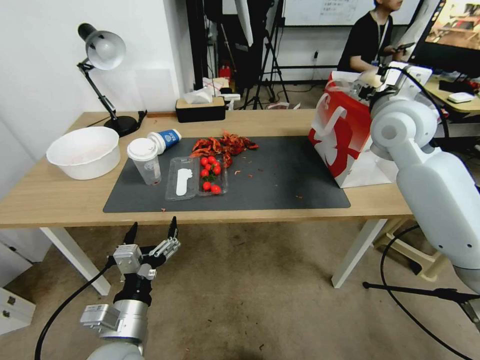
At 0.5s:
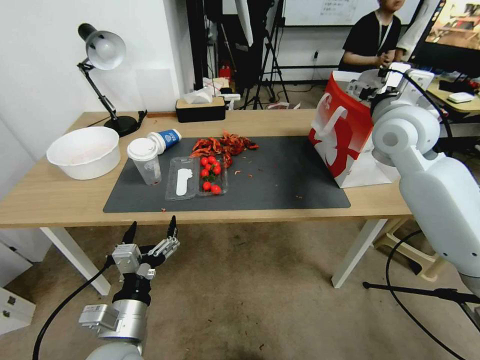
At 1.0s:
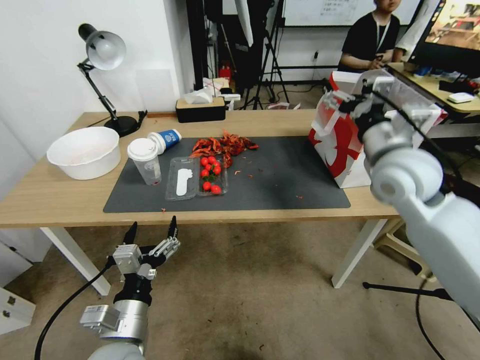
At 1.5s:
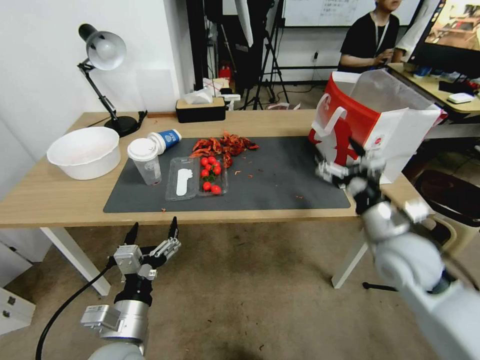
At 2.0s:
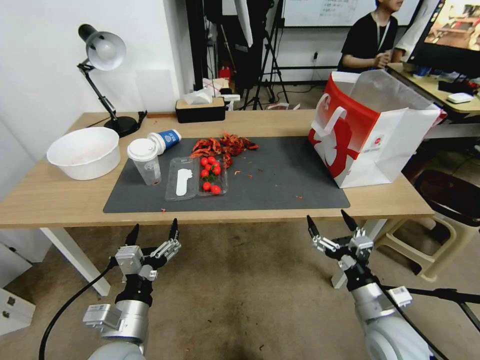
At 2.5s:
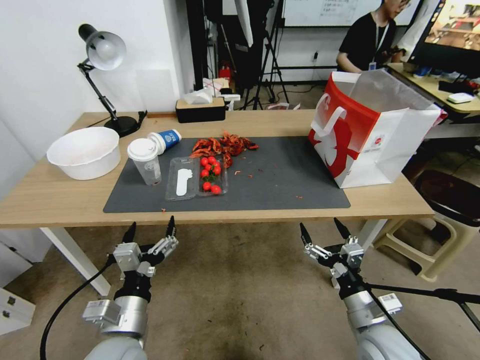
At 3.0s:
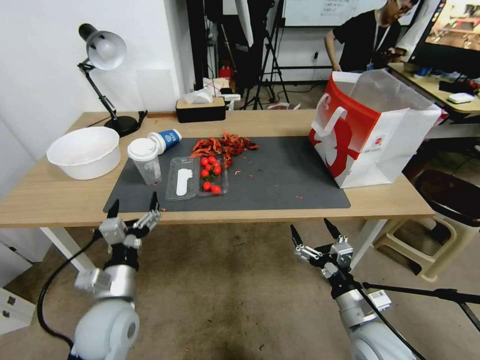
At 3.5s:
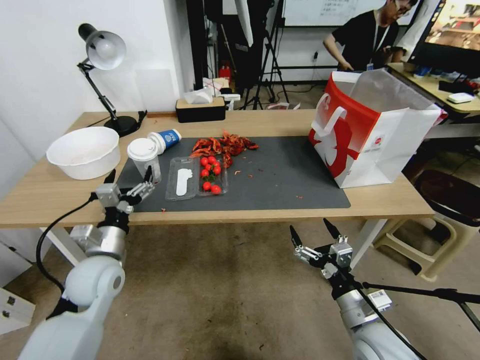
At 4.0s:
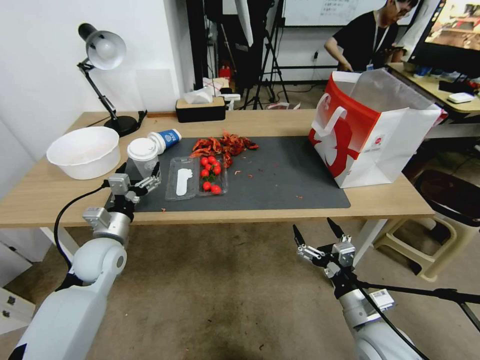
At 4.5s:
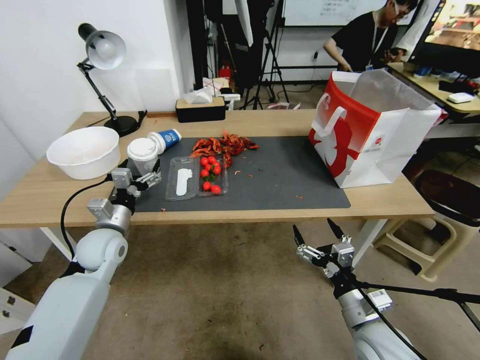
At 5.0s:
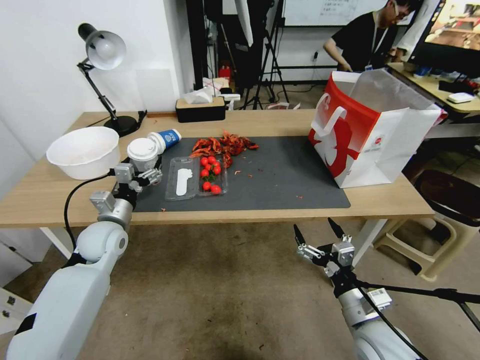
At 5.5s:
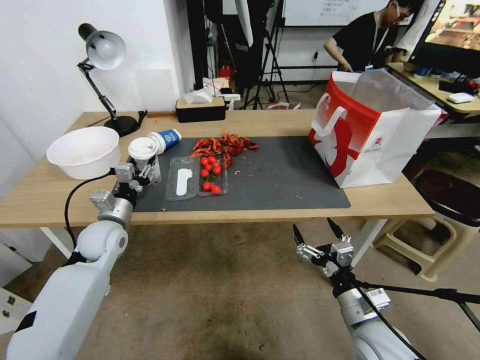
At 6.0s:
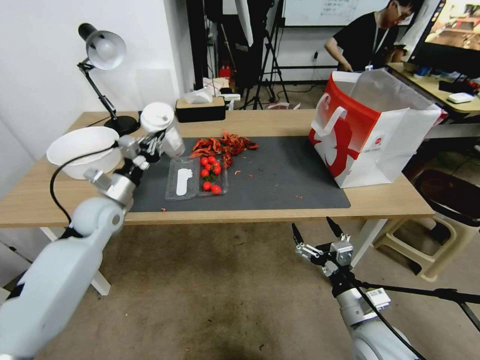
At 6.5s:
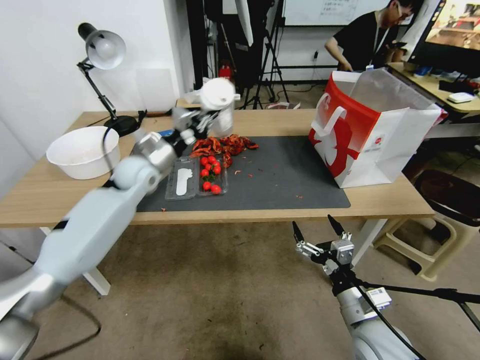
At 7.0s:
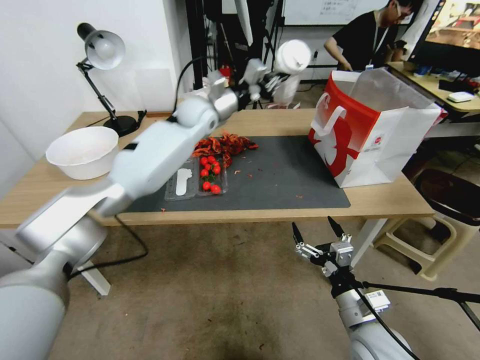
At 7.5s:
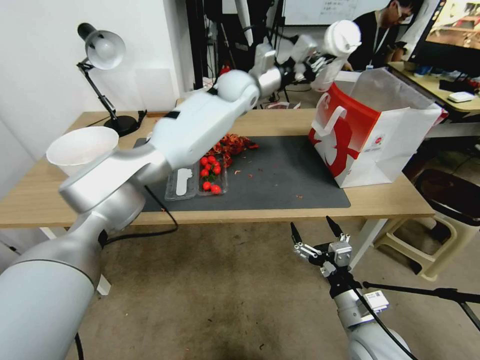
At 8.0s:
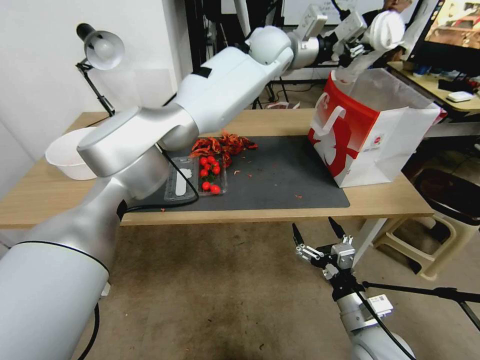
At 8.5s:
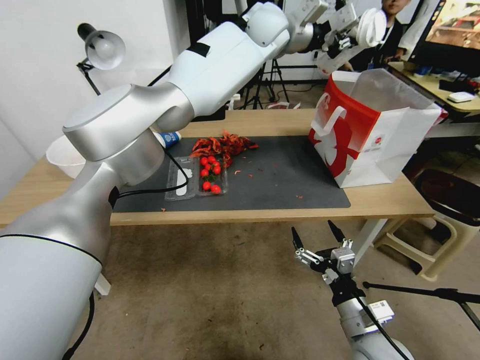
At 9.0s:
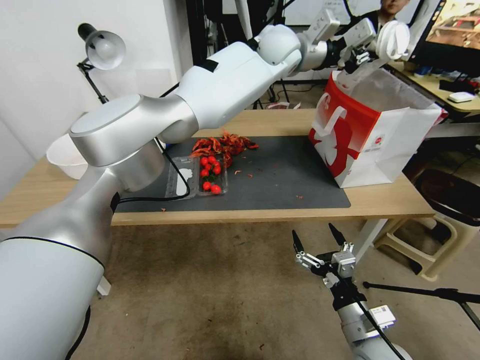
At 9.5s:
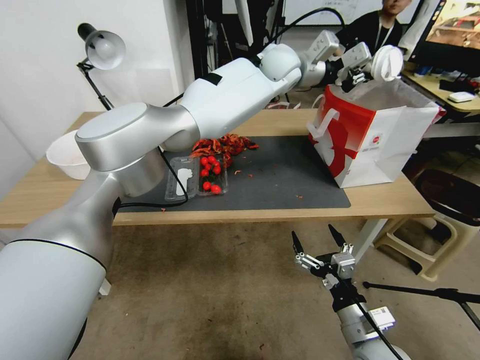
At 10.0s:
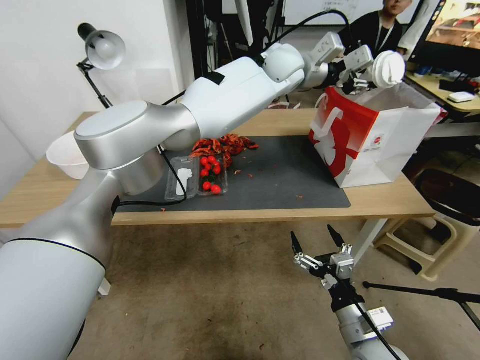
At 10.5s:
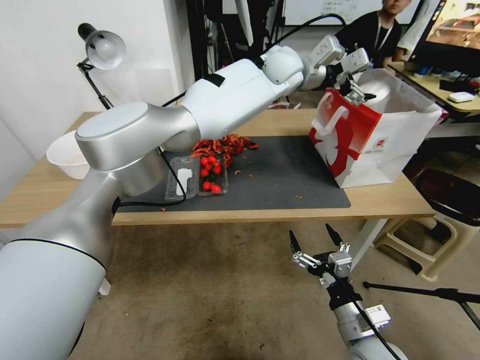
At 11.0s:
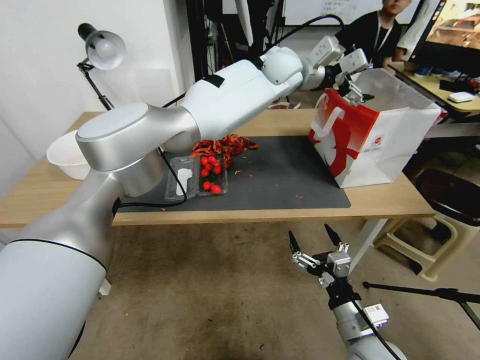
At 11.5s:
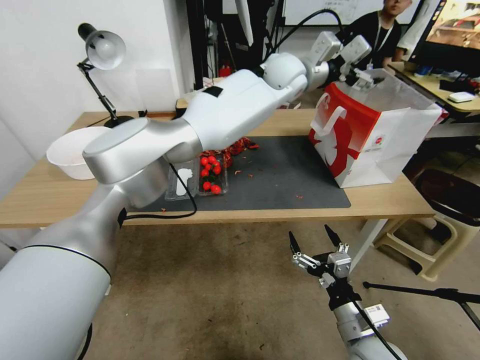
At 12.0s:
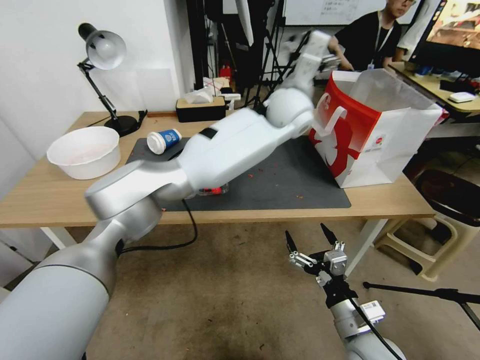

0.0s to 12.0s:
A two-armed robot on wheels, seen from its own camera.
0.0s to 2.0s: The right gripper heads downward and backward, covering roughly 40 cm.
2.0s to 4.0s: The left gripper travels forward and to the left by roughly 20 cm.
4.0s to 6.0s: The left gripper heads forward, covering approximately 5 cm, and closes its fingers.
6.0s to 8.0s: The left gripper travels to the right, upward and forward by approximately 60 cm.
8.0s to 10.0s: The left gripper opens its fingers.
10.0s to 12.0s: The left gripper goes about 10 cm backward and downward, and opens.

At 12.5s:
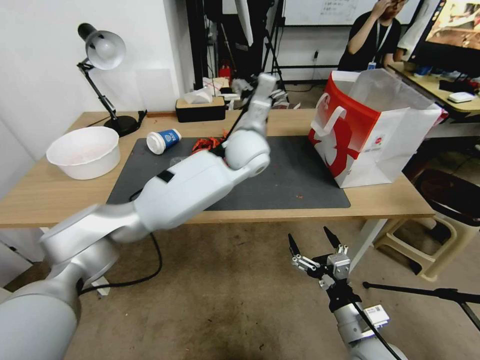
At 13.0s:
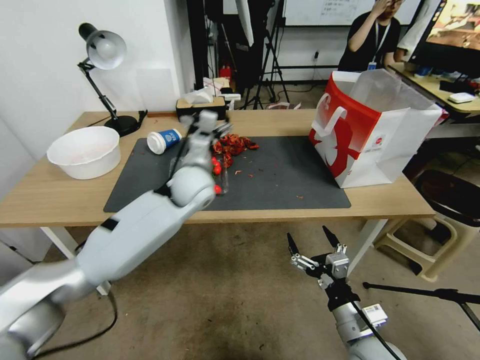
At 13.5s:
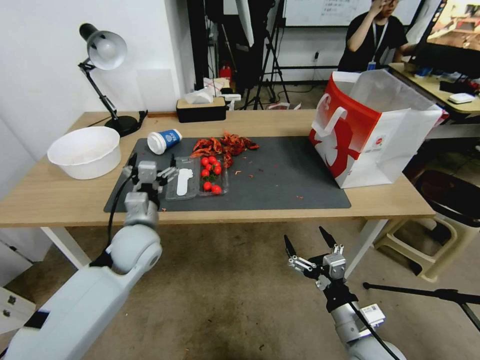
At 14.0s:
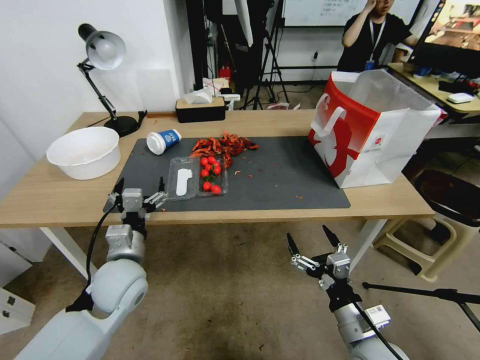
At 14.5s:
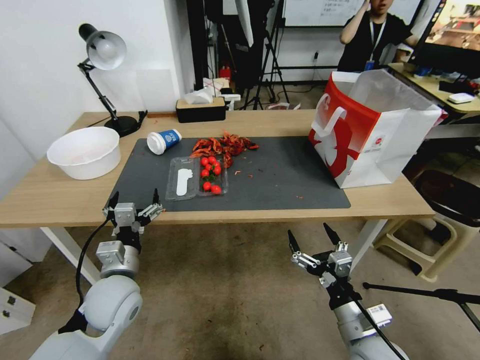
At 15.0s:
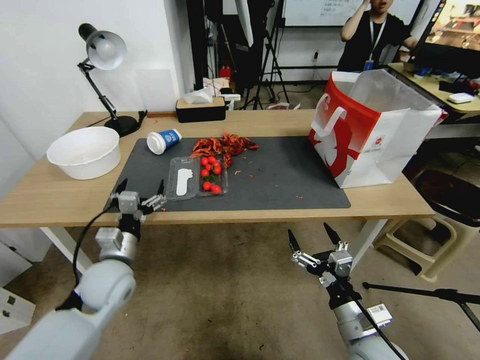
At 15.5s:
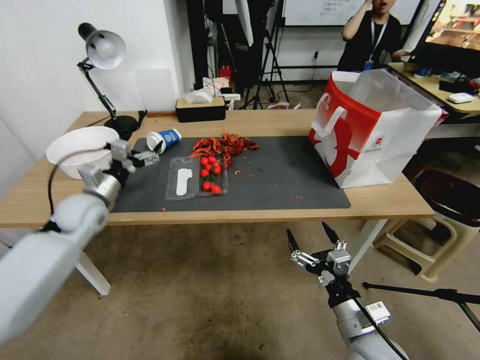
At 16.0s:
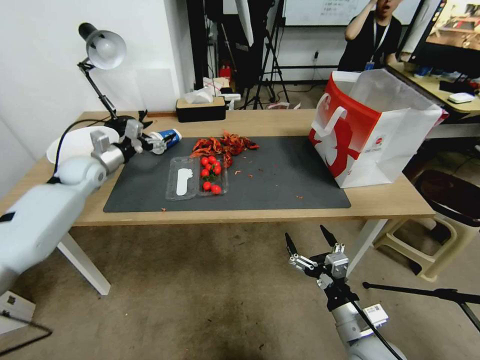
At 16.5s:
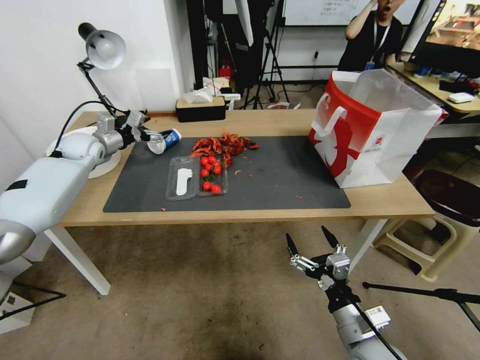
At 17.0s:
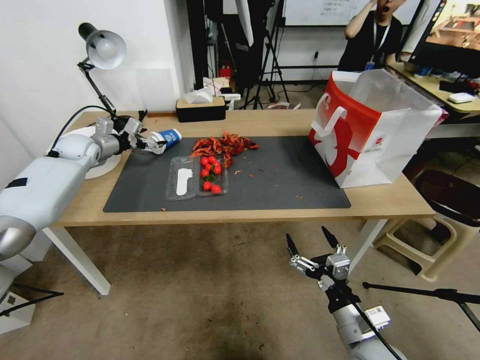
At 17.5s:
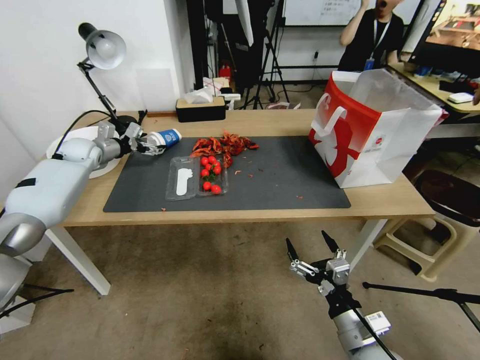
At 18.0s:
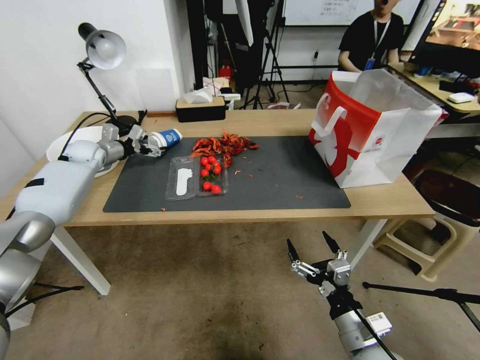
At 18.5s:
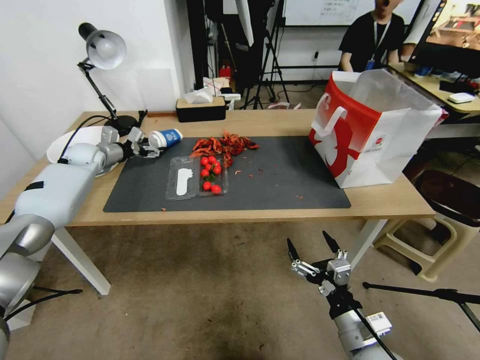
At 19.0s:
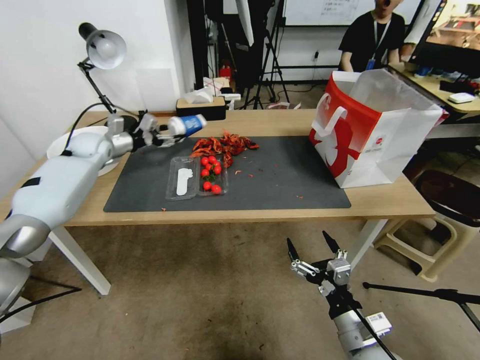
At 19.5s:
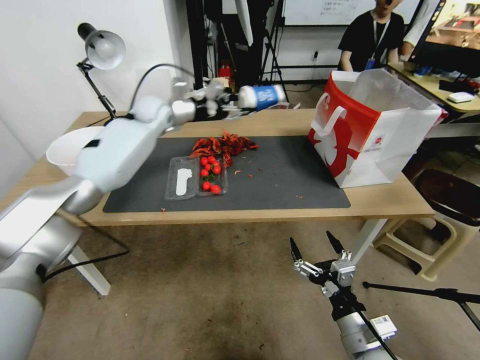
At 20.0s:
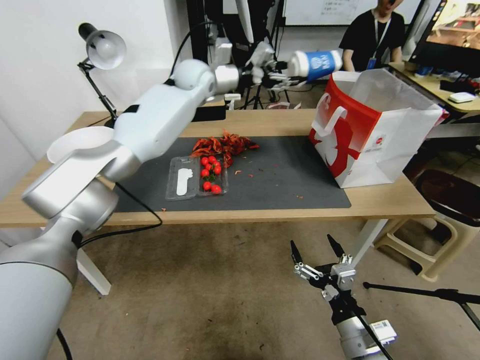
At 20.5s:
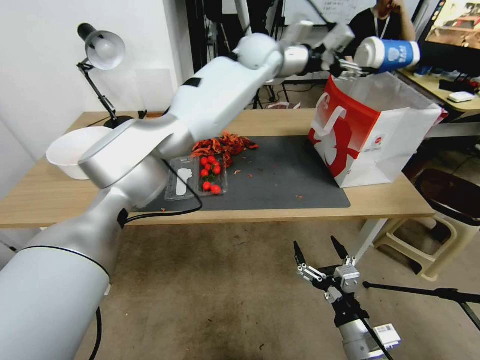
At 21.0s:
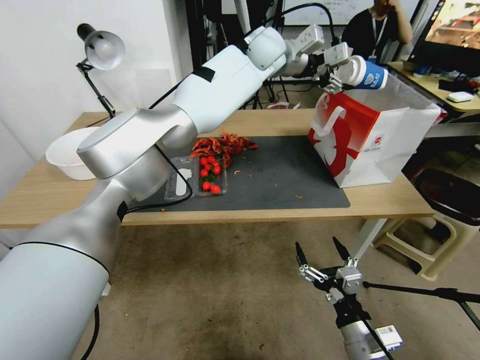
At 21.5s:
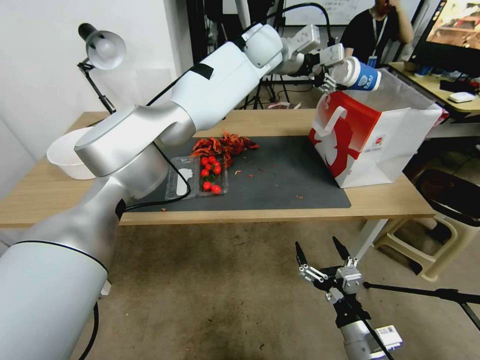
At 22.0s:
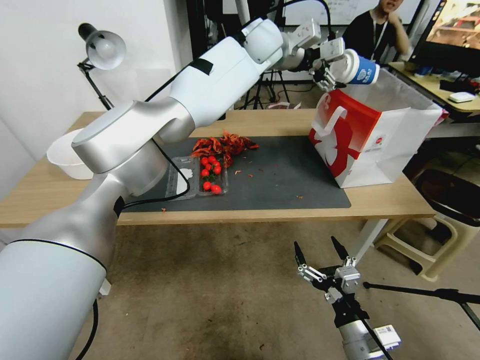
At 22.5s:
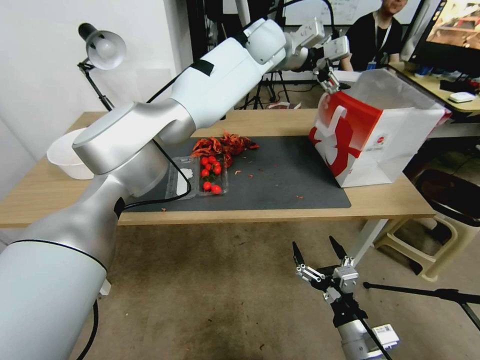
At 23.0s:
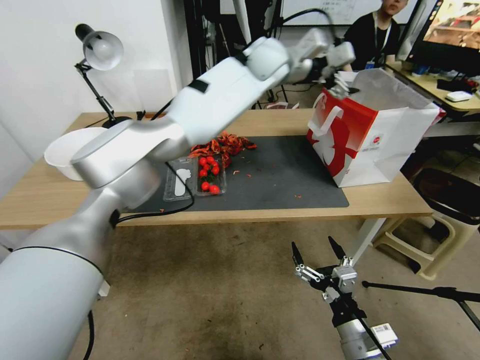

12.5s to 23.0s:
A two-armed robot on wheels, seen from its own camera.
12.5s to 14.5s: The left gripper shifts some 40 cm to the left, backward and downward.
14.5s to 16.5s: The left gripper moves forward and to the left, some 35 cm.
16.5s to 19.0s: The grippers stay close to where they were, moving slightly.
19.0s to 21.0s: The left gripper heads to the right and upward, covering some 50 cm.
21.0s to 23.0s: The left gripper opens its fingers.

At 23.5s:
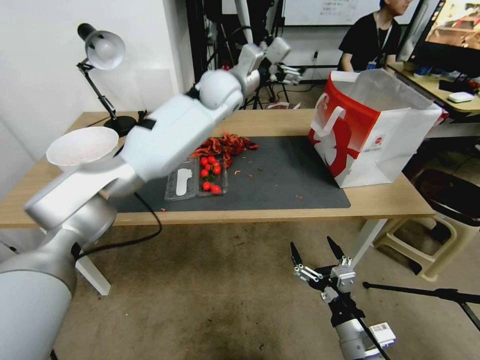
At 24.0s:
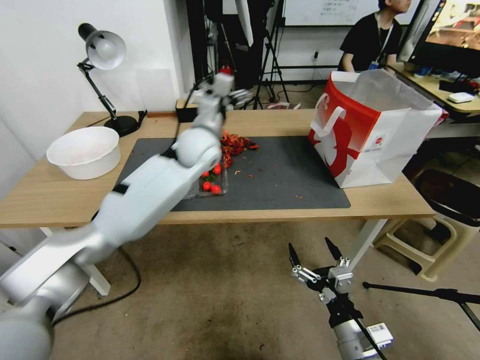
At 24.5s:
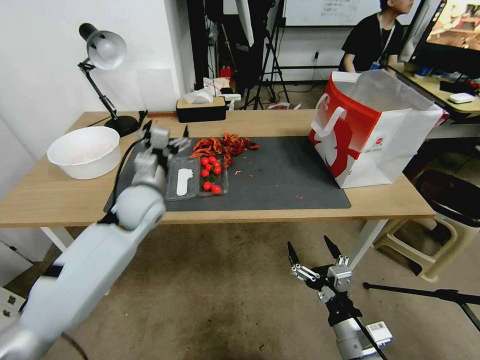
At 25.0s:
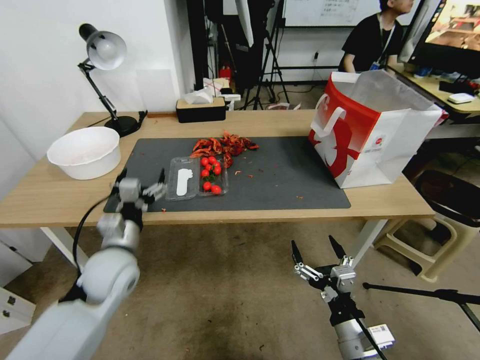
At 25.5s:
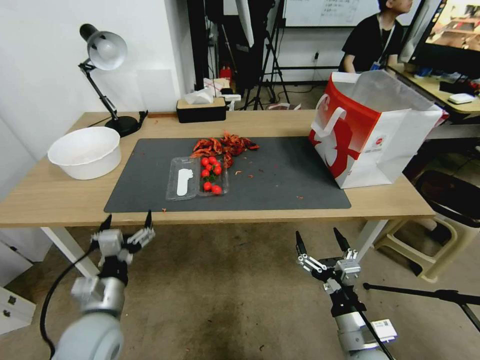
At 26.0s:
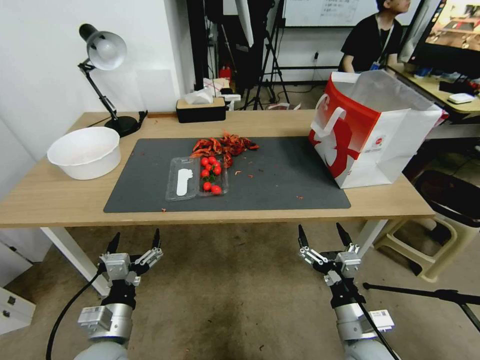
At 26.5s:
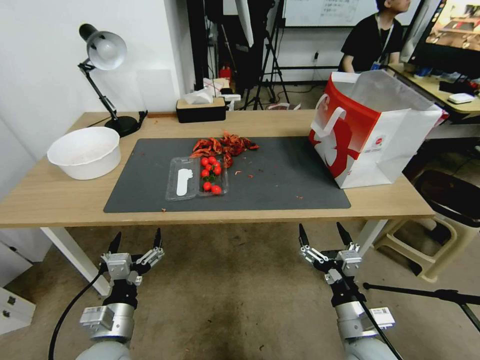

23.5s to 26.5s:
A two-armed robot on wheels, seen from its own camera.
23.5s to 25.0s: The left gripper goes approximately 50 cm backward, downward and to the left.
25.0s to 26.5s: The left gripper travels backward and downward by about 15 cm.
